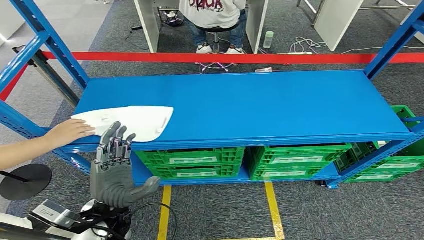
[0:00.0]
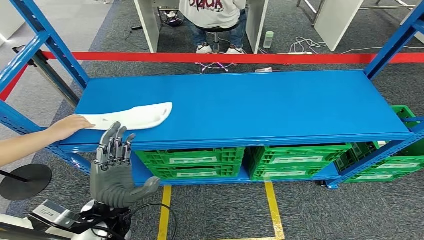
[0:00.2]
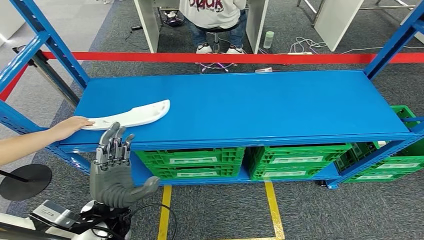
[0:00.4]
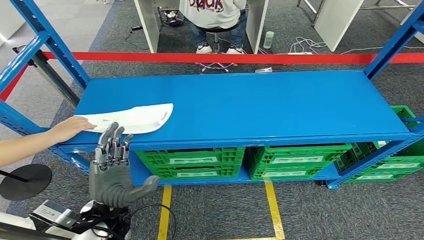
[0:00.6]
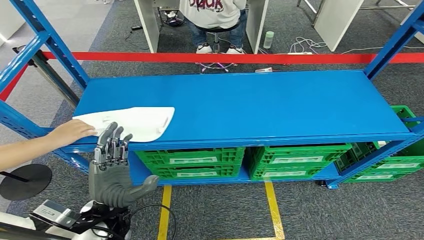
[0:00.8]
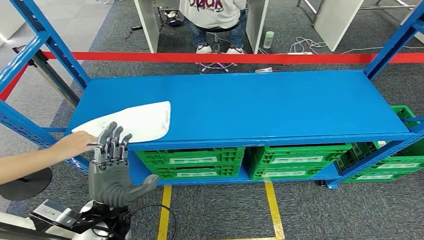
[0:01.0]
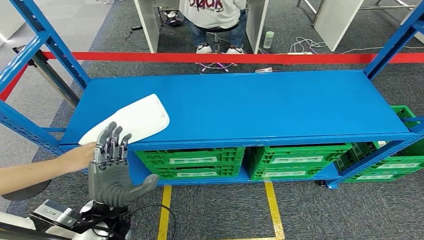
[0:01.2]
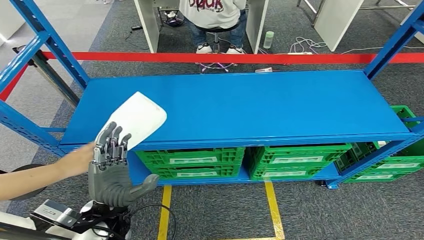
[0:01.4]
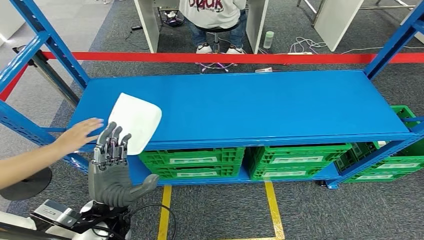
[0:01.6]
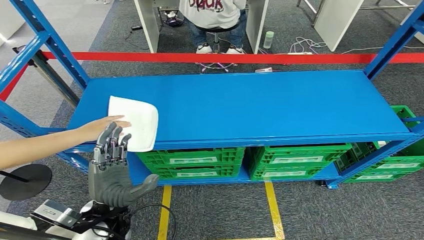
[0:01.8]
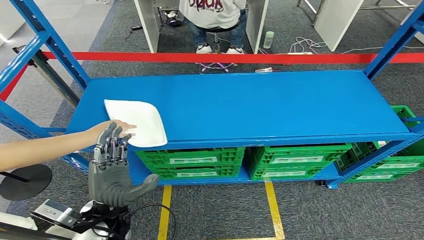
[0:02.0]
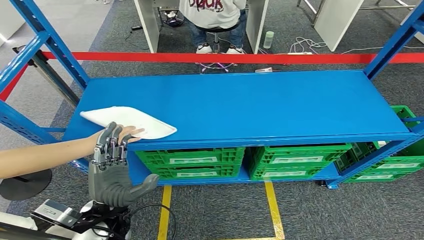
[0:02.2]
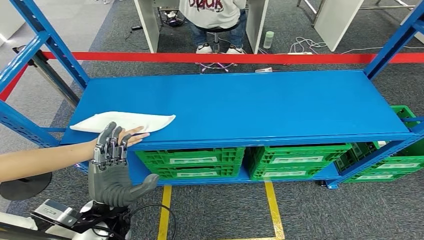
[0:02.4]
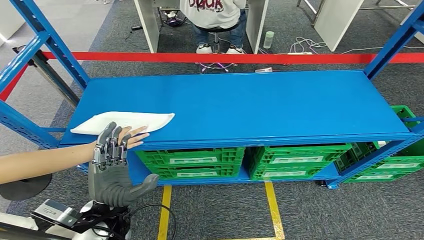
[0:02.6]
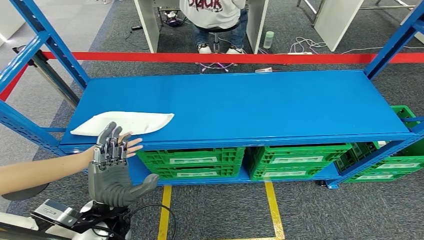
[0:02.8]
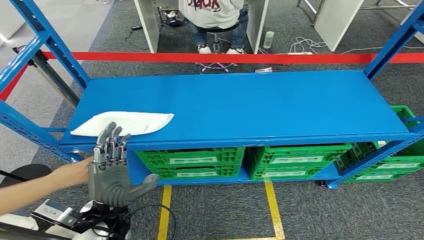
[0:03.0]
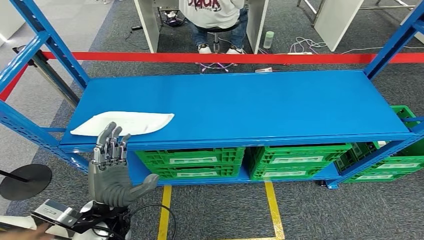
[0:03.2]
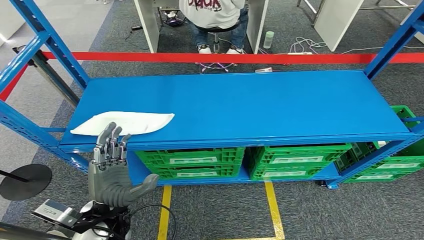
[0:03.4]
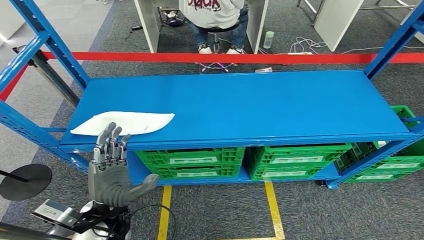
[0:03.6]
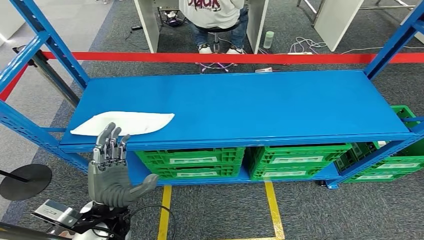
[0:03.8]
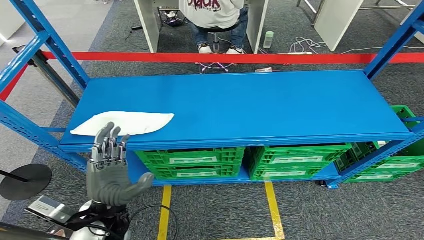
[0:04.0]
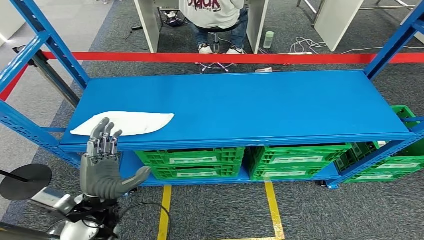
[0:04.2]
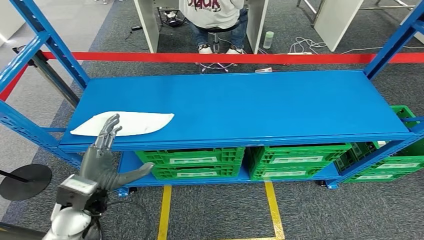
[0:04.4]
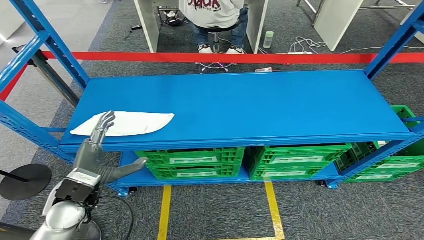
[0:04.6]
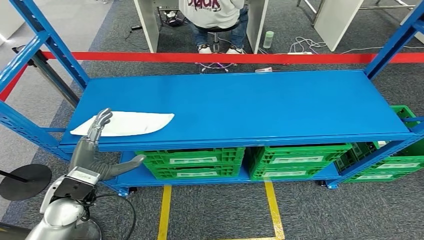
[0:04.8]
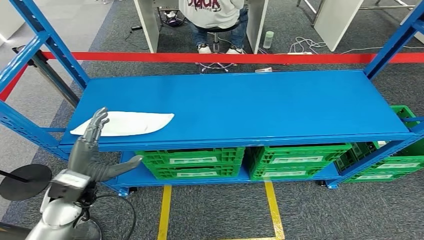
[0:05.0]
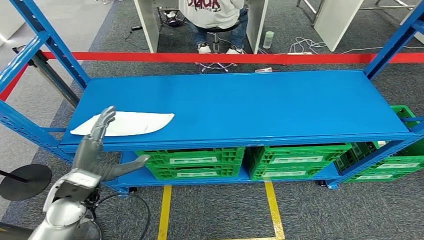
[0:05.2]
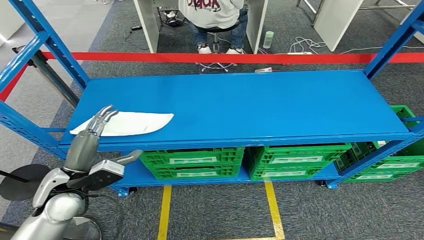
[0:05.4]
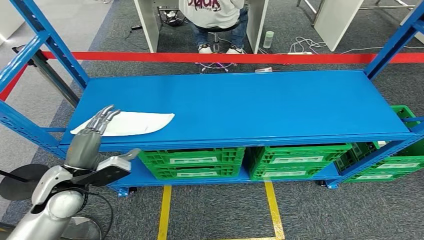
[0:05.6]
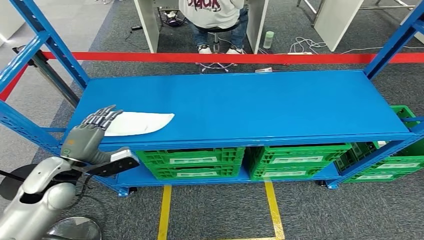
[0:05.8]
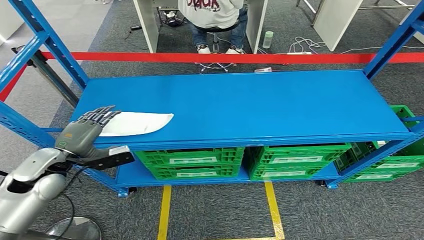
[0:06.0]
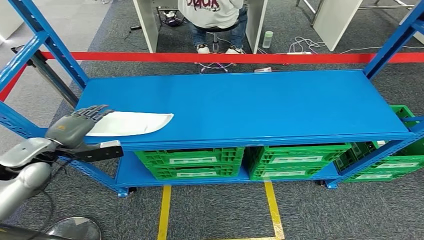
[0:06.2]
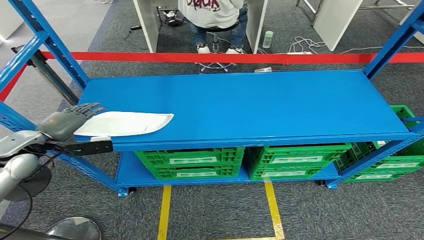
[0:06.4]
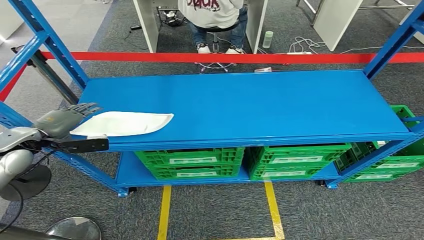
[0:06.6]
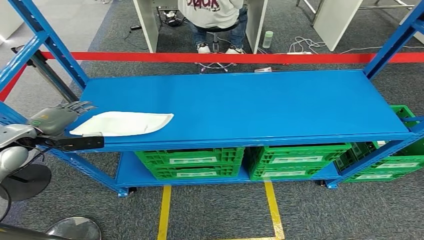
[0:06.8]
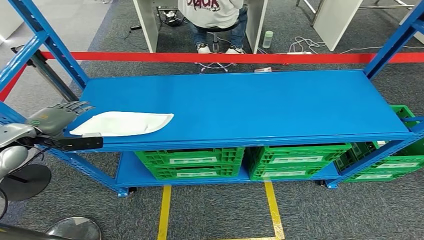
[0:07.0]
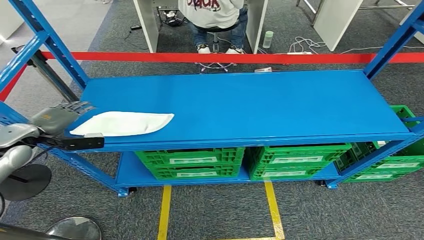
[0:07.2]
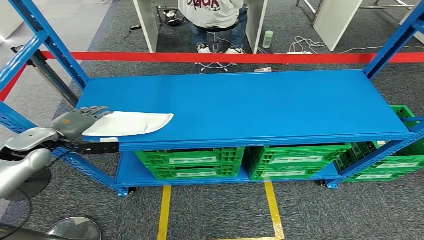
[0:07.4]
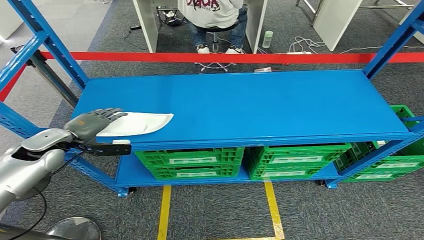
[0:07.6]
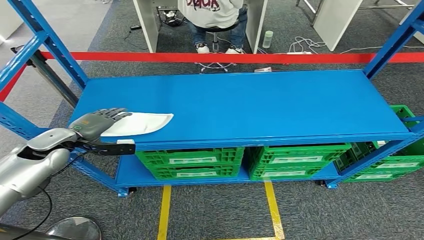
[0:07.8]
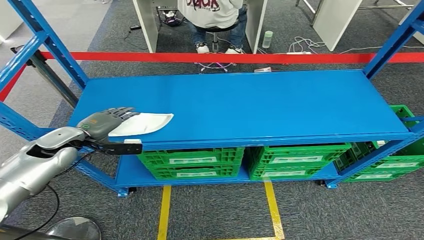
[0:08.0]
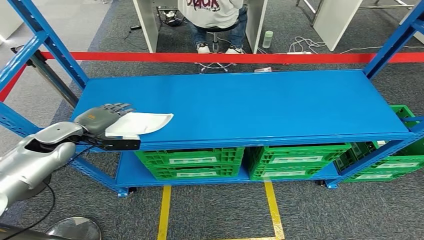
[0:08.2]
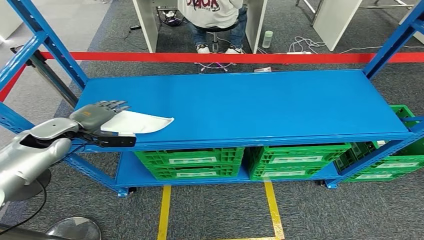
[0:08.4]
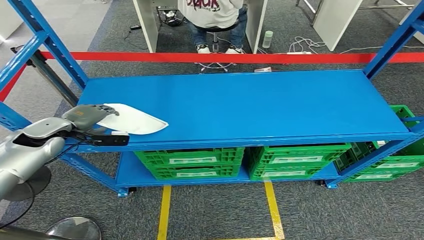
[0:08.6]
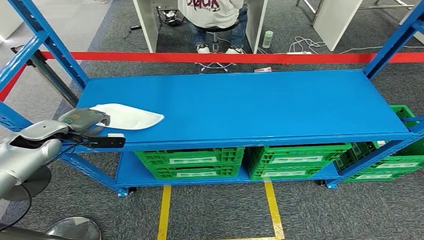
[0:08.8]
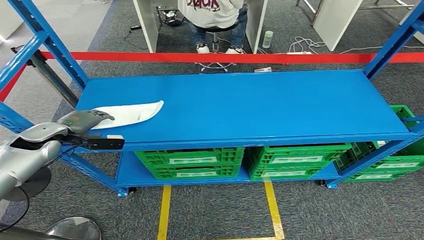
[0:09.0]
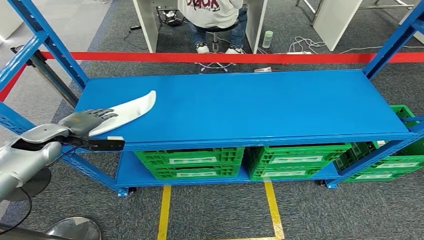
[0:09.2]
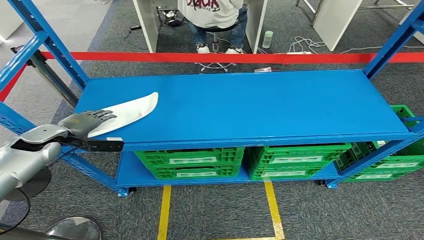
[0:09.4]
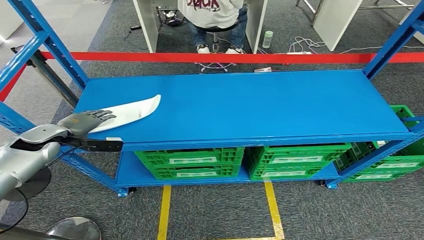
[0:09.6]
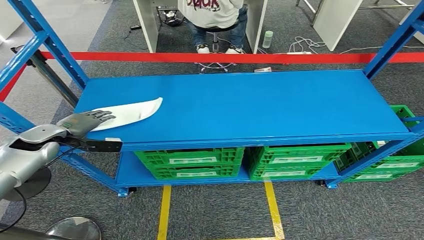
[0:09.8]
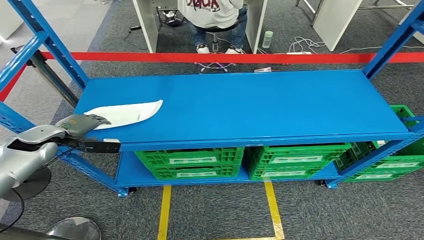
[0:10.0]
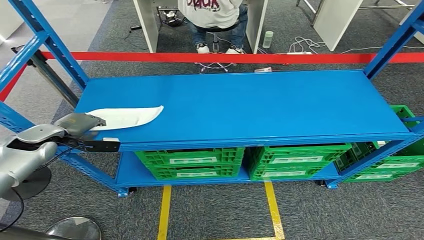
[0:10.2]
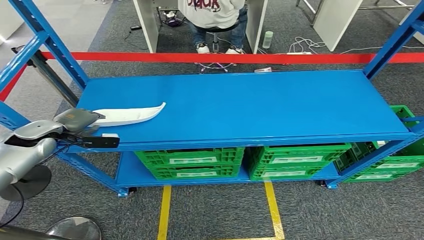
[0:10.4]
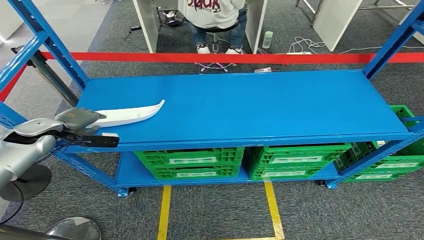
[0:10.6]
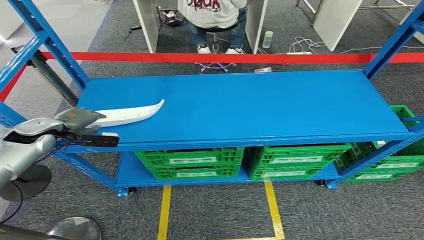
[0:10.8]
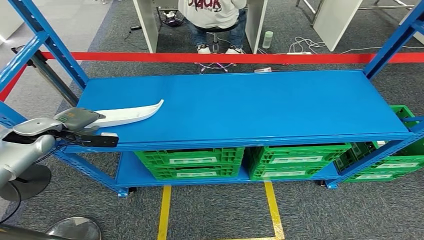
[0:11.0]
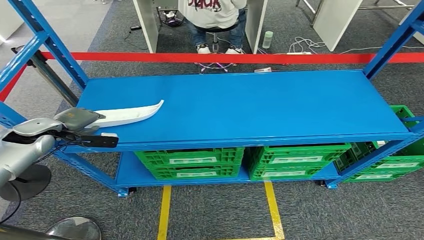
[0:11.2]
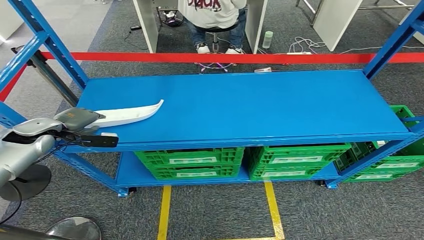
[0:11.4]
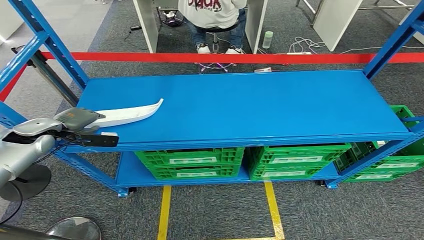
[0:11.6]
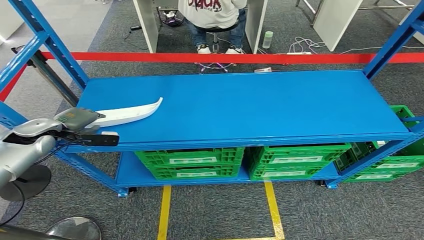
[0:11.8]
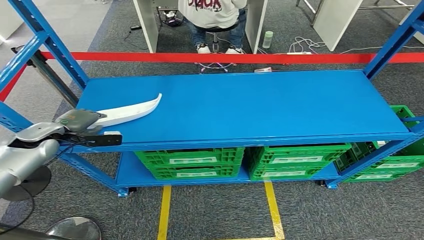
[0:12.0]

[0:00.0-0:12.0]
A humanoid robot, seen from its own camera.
0:00.0 to 0:03.0: Both hands stay about where they are.
0:03.0 to 0:04.4: The left hand is displaced to the left by about 5 cm.
0:04.4 to 0:06.0: The left hand moves to the left and forward, approximately 15 cm.
0:06.0 to 0:07.6: The left hand heads forward, covering approximately 10 cm.
0:07.6 to 0:12.0: The hands stay close to where they were, moving slightly.

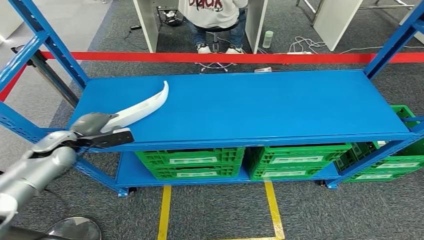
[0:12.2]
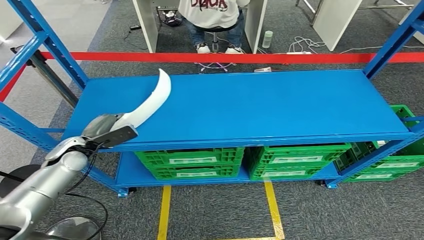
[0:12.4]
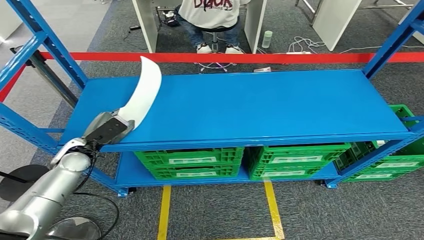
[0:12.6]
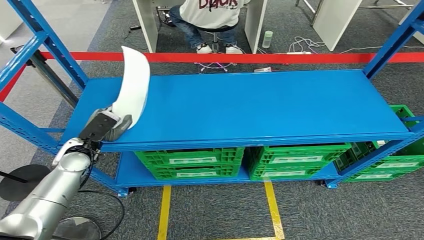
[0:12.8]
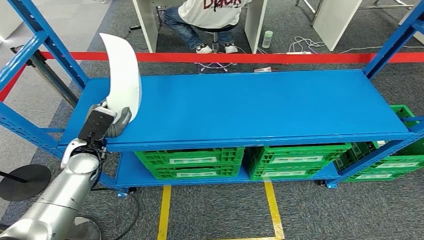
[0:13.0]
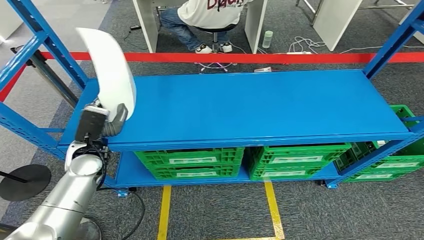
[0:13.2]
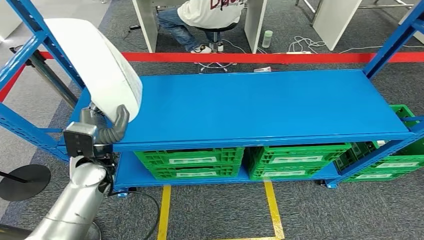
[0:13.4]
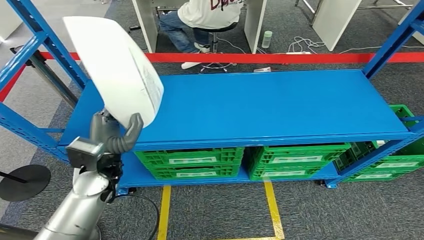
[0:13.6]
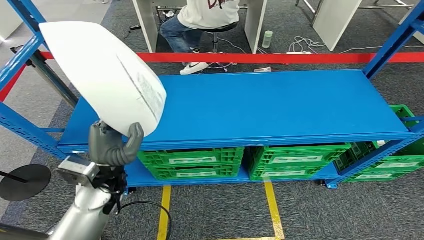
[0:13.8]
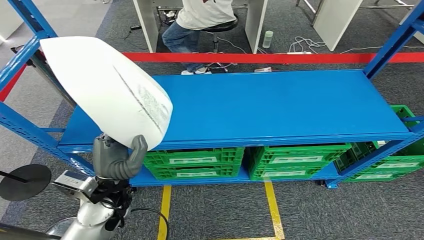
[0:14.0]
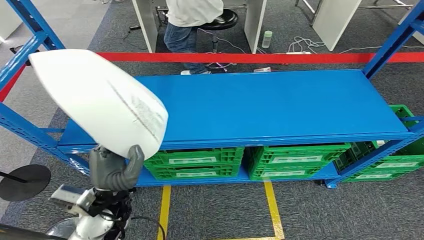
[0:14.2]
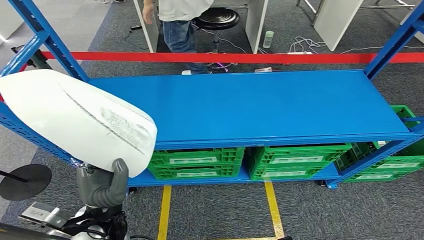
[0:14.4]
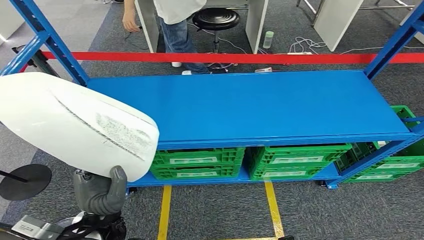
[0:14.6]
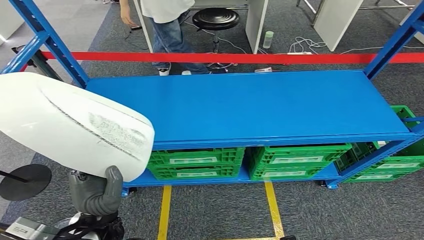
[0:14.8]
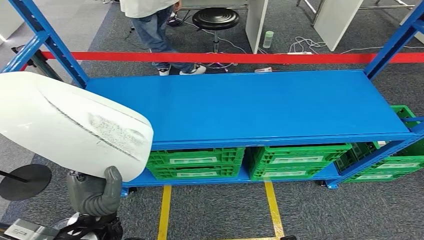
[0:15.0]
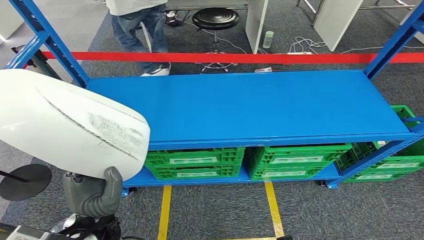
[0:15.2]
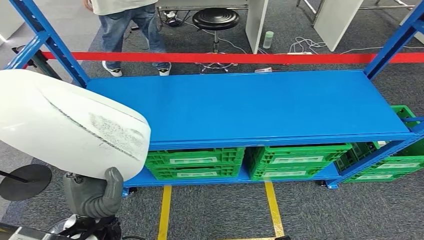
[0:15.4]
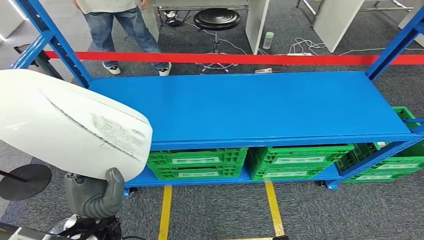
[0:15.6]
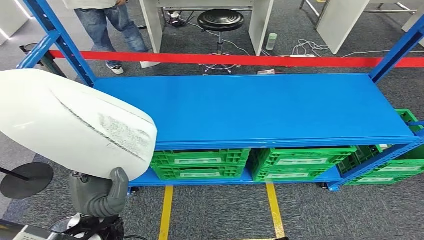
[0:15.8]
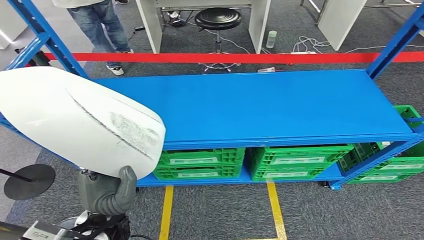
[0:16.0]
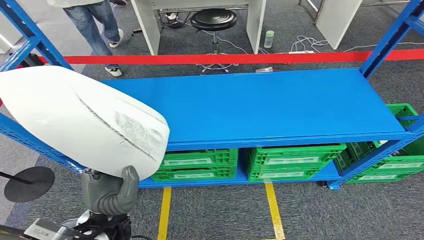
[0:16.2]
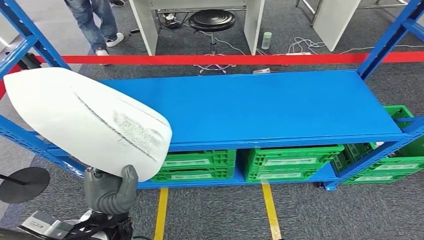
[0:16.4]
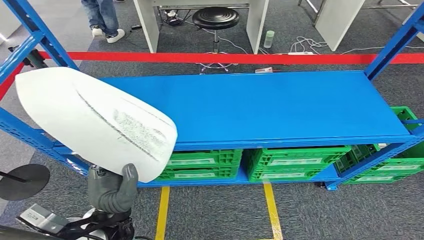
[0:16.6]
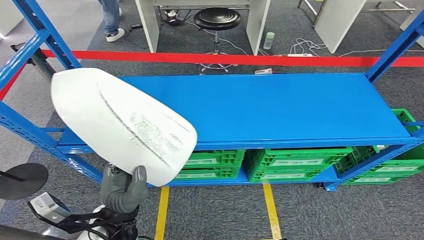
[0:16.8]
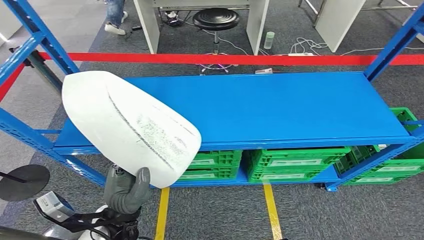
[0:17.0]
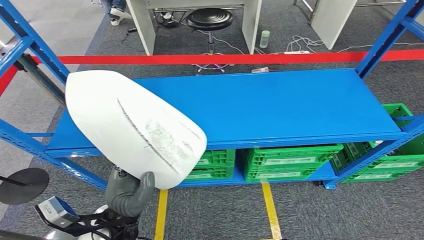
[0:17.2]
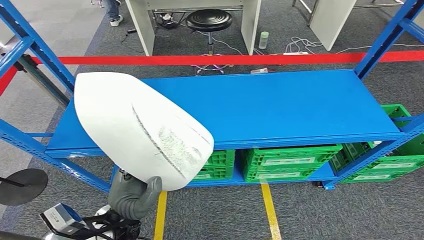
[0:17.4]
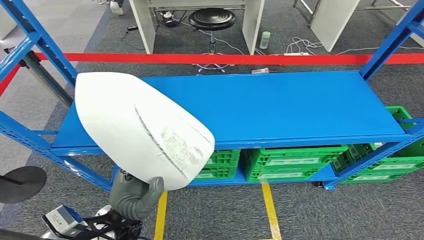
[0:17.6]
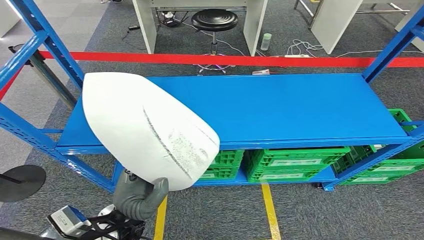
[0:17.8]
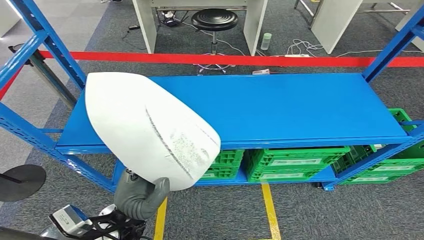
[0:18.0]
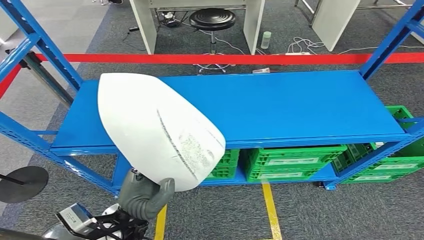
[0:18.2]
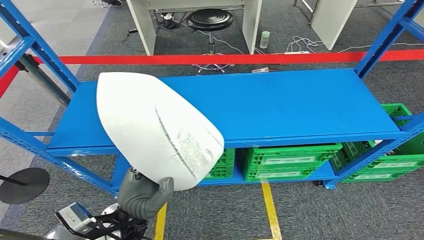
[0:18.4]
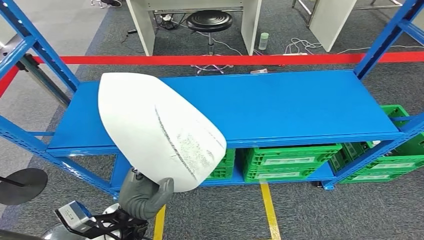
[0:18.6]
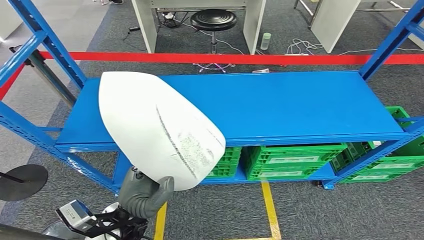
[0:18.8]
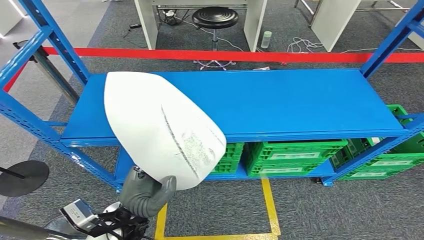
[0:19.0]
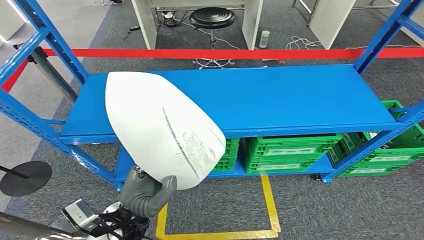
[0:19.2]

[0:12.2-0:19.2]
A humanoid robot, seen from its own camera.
Step, 0:12.2 to 0:15.6: Pick up the small component from the shelf.
0:12.2 to 0:13.6: The left hand moves to the right and backward, approximately 20 cm.
